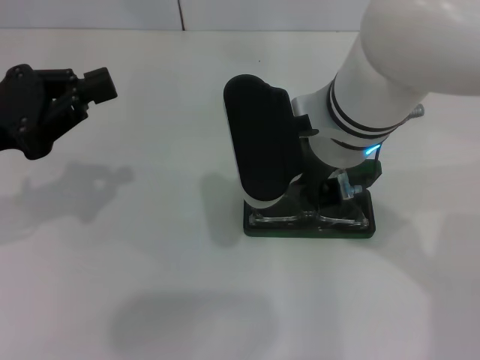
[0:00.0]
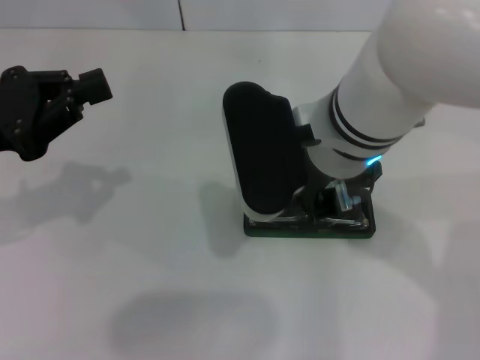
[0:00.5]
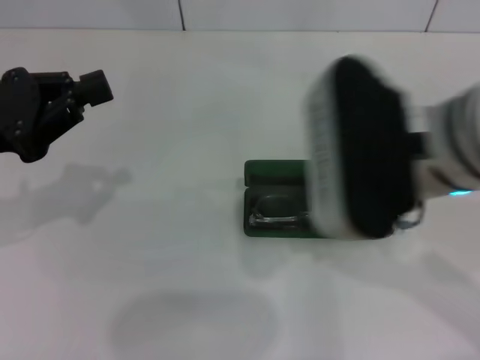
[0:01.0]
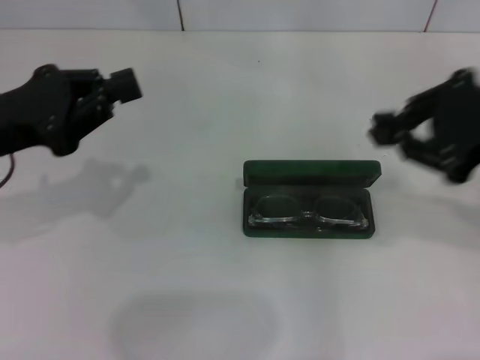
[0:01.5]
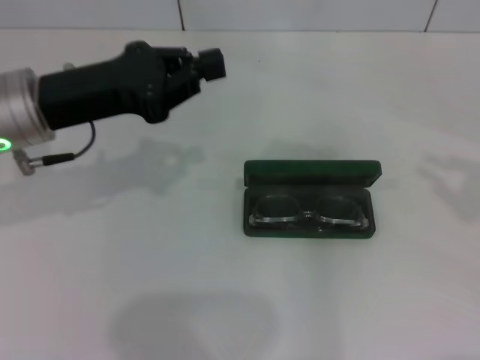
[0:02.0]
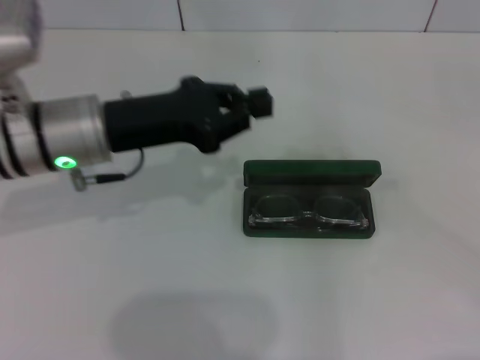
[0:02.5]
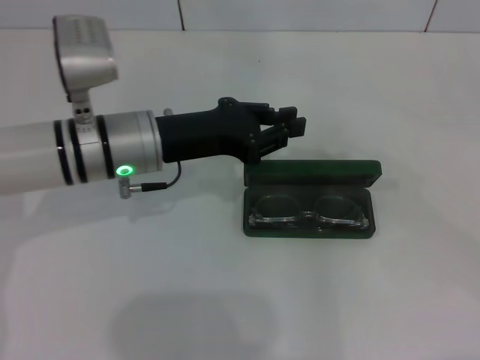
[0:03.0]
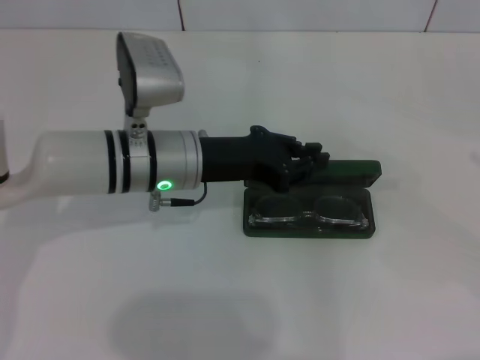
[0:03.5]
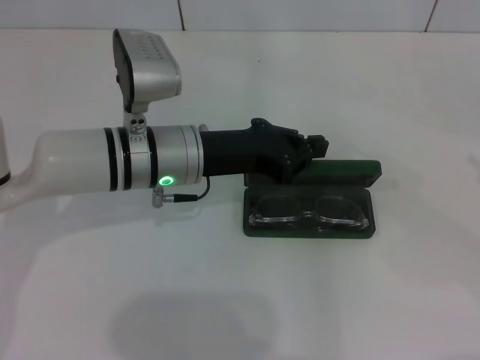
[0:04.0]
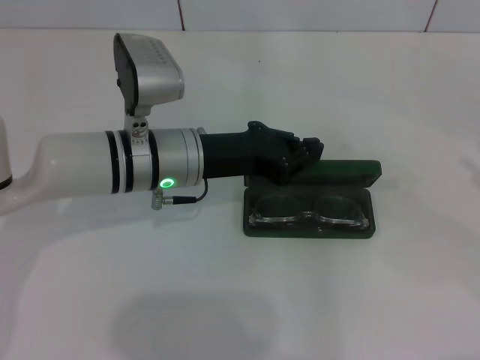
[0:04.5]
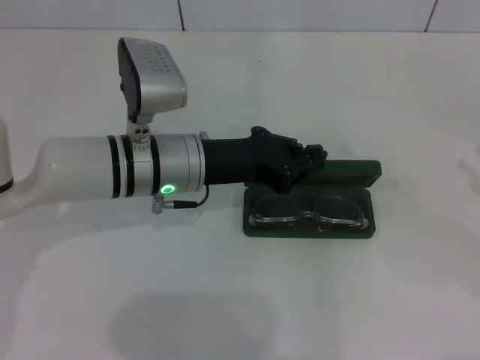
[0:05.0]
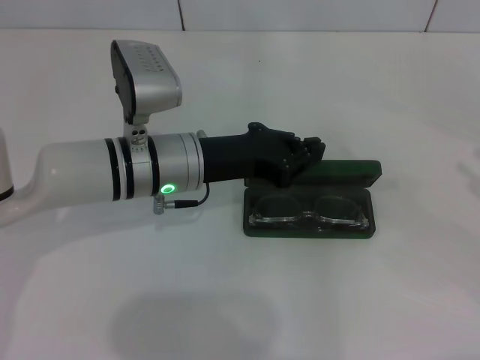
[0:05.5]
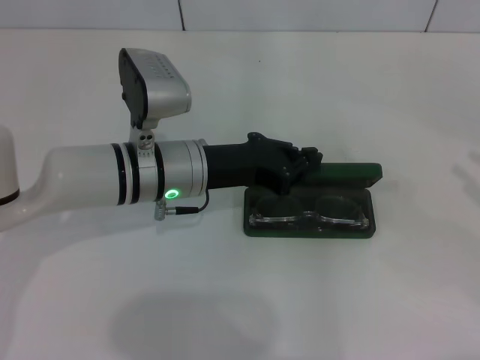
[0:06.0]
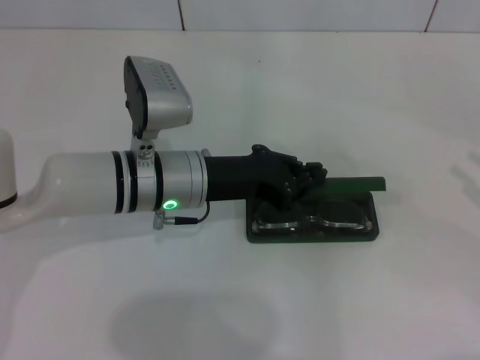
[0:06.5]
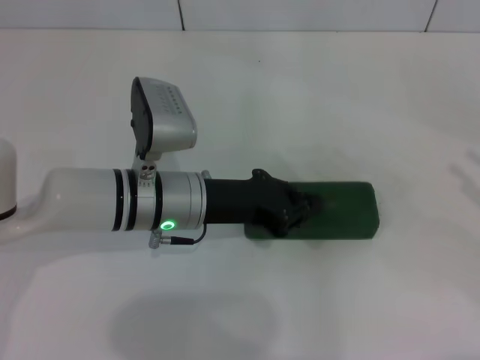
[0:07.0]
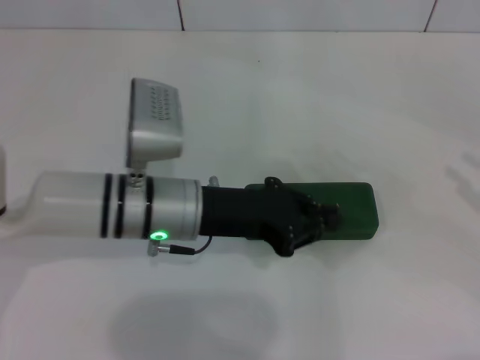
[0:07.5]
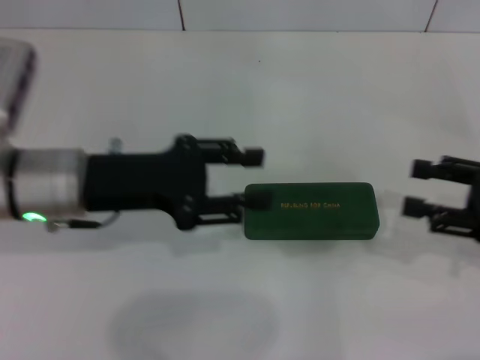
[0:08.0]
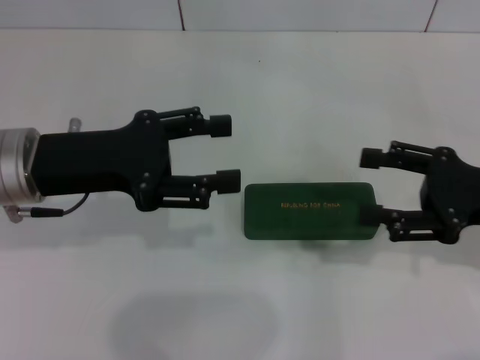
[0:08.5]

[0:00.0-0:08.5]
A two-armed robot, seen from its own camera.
Step, 0:00.5 to 0:07.0: Close the glasses case with your left hand.
0:00.0 to 0:02.0: The right gripper heads to the right, covering roughly 35 cm. The left gripper moves to the right, approximately 10 cm.
0:02.0 to 0:04.0: The left gripper heads to the right and downward, covering some 15 cm. The right gripper is displaced downward by approximately 10 cm.
0:04.0 to 0:06.5: The grippers move only a little.
0:06.5 to 0:08.5: The left gripper goes some 15 cm to the left and upward, and opens up, while the right gripper travels to the left and forward by about 15 cm, and opens.
